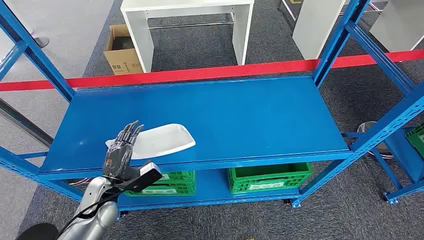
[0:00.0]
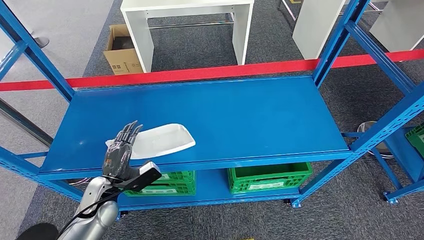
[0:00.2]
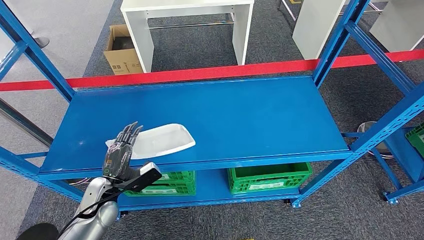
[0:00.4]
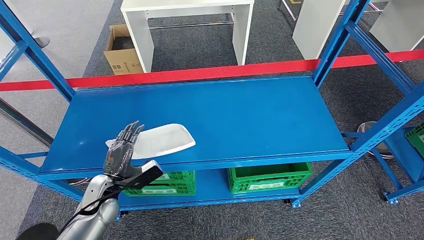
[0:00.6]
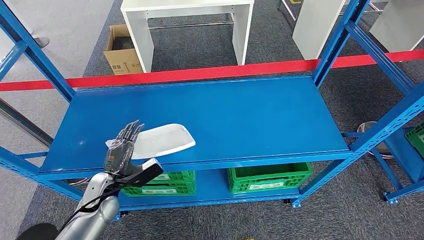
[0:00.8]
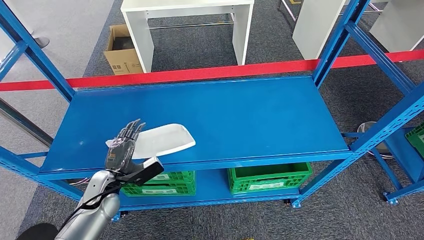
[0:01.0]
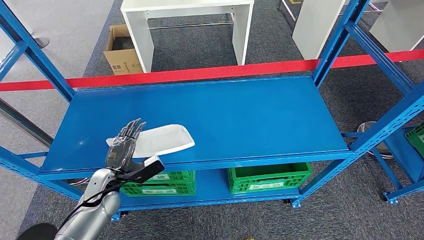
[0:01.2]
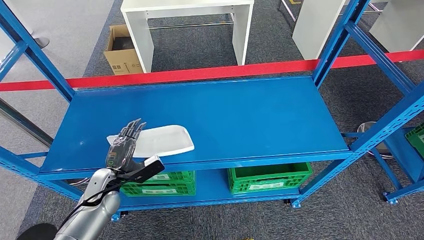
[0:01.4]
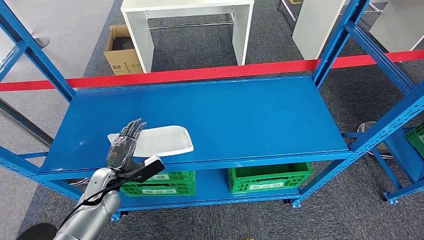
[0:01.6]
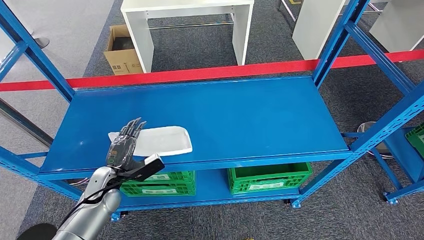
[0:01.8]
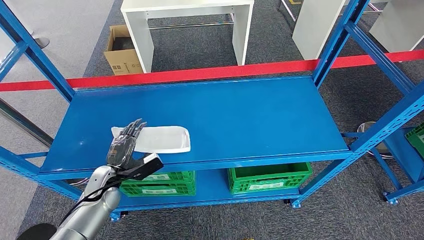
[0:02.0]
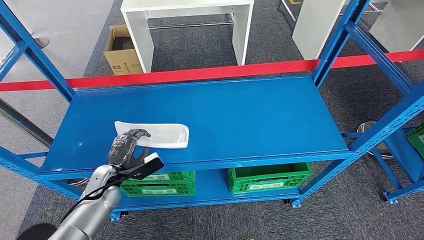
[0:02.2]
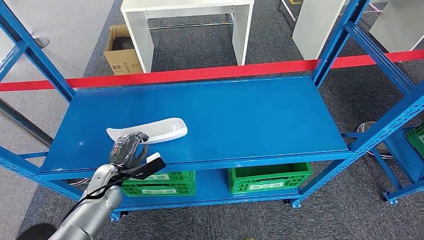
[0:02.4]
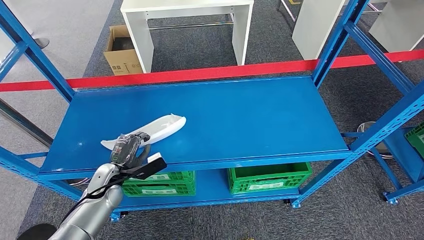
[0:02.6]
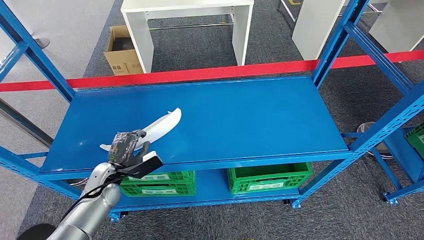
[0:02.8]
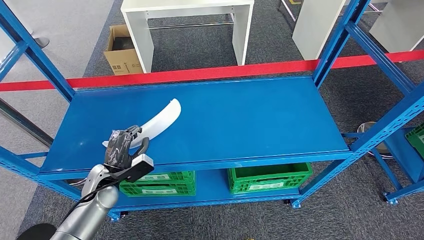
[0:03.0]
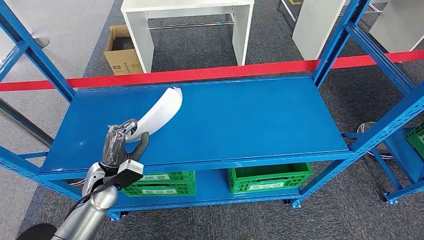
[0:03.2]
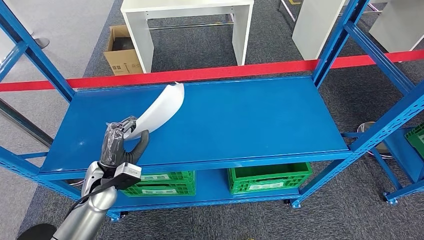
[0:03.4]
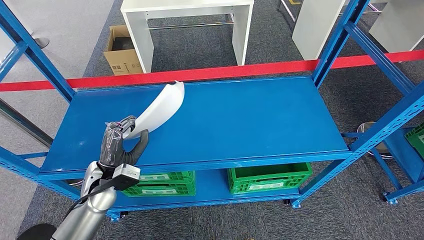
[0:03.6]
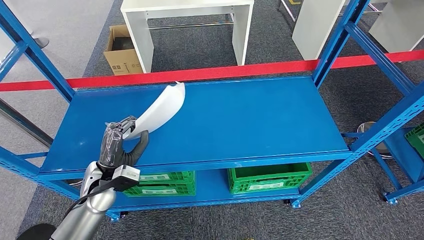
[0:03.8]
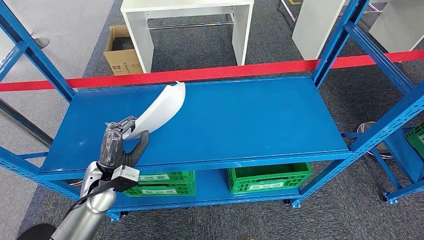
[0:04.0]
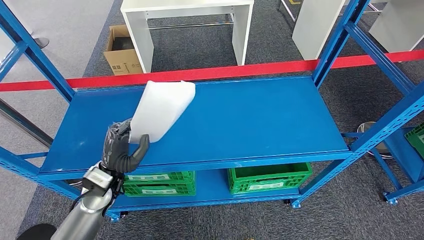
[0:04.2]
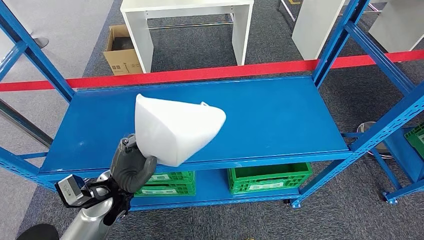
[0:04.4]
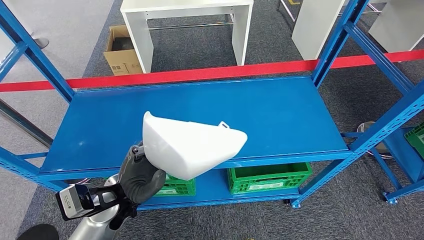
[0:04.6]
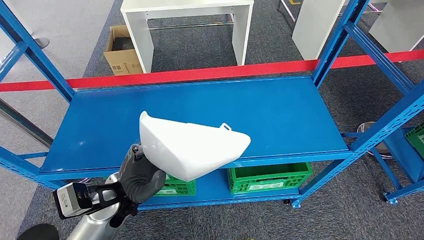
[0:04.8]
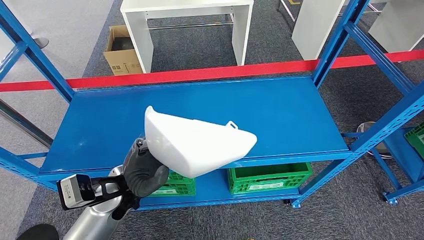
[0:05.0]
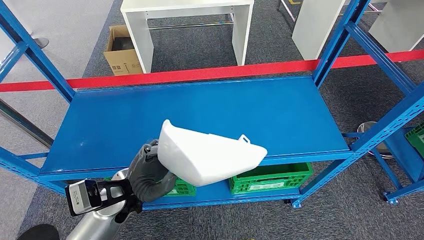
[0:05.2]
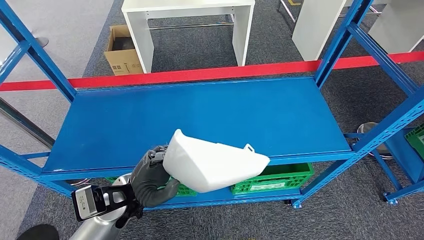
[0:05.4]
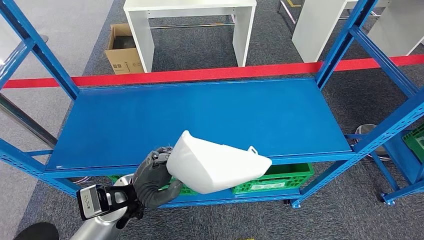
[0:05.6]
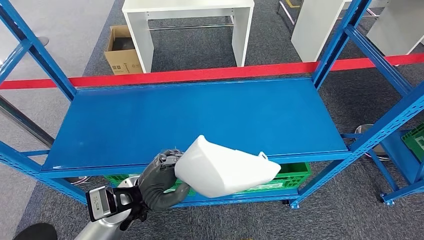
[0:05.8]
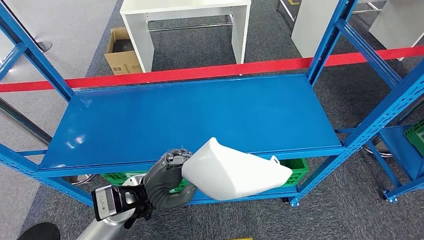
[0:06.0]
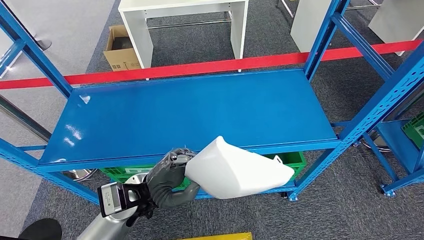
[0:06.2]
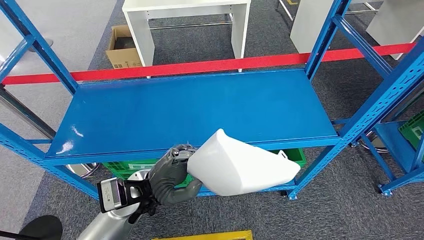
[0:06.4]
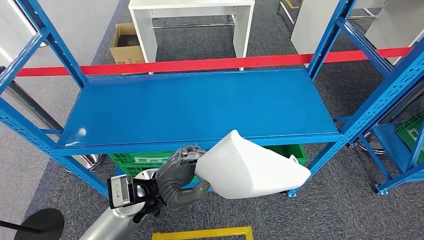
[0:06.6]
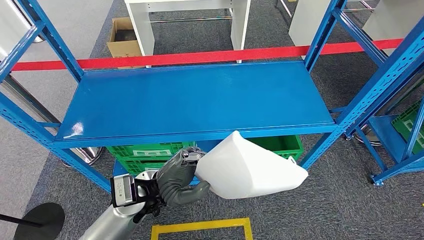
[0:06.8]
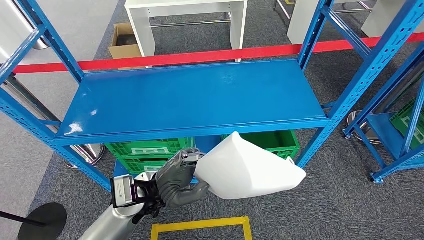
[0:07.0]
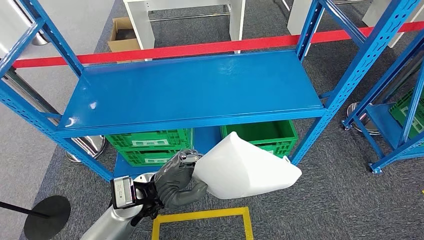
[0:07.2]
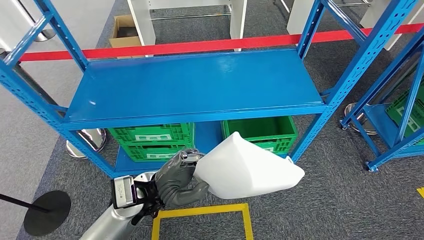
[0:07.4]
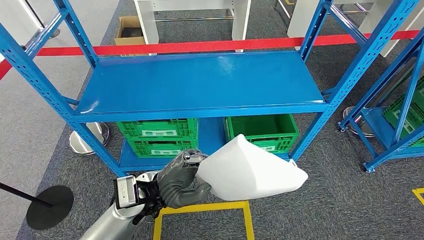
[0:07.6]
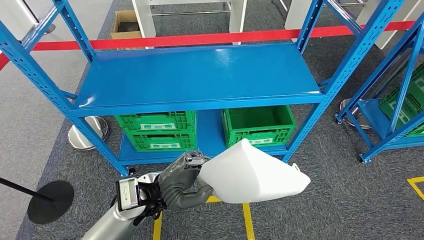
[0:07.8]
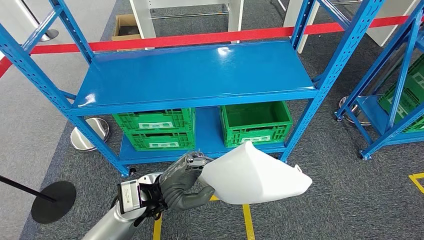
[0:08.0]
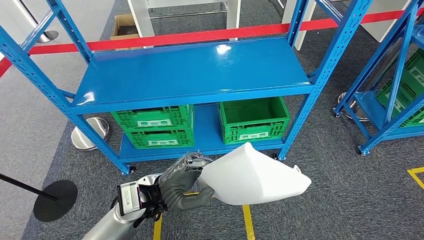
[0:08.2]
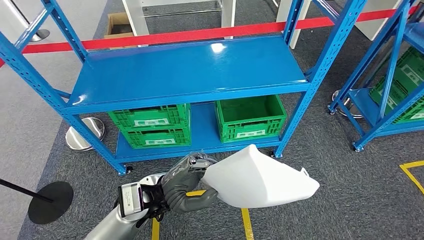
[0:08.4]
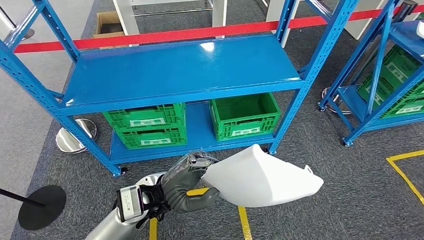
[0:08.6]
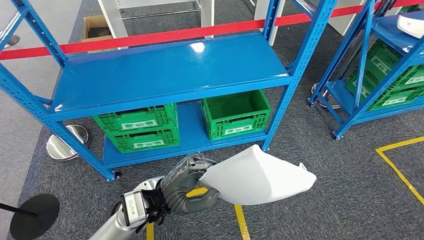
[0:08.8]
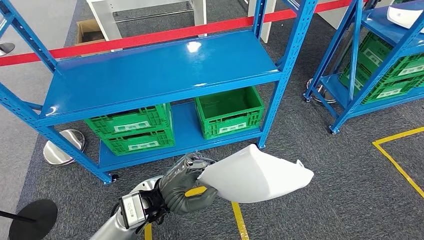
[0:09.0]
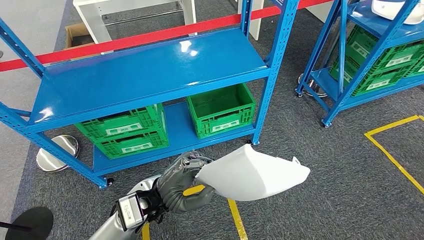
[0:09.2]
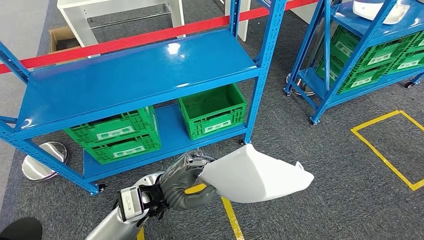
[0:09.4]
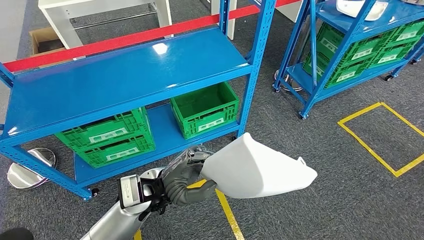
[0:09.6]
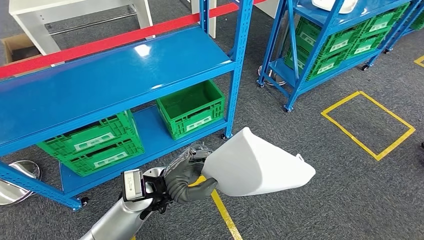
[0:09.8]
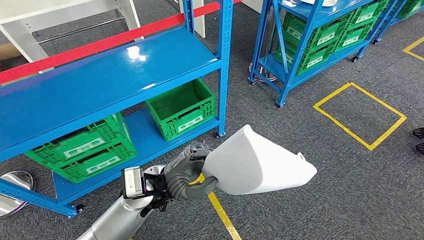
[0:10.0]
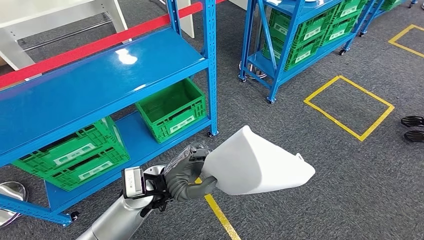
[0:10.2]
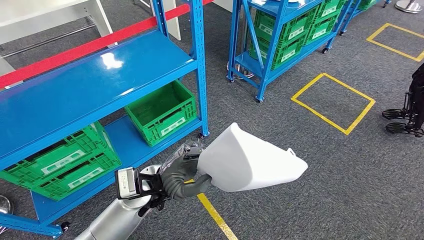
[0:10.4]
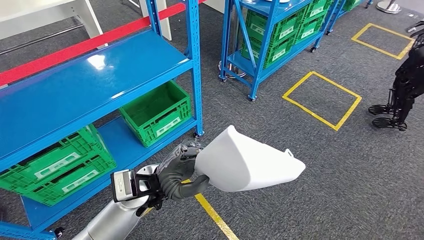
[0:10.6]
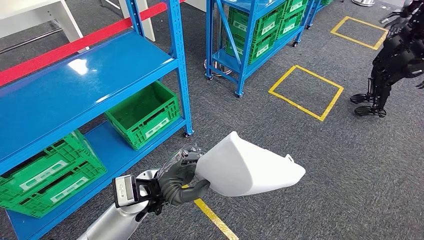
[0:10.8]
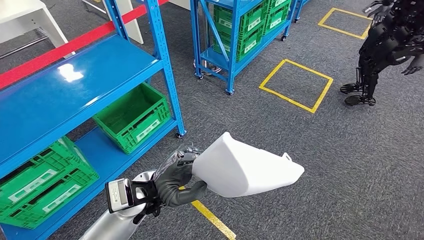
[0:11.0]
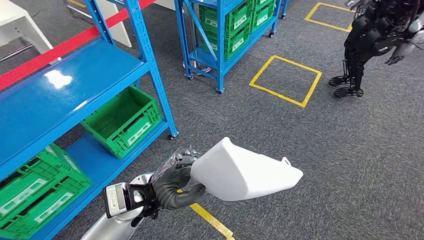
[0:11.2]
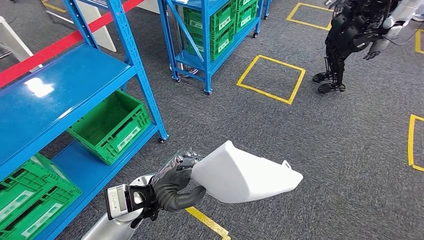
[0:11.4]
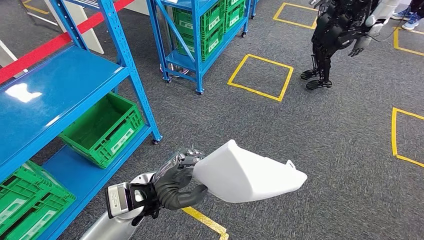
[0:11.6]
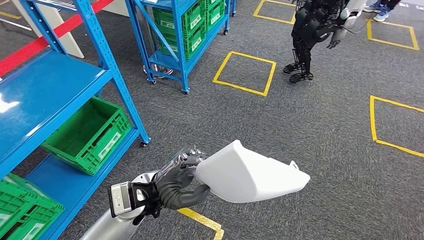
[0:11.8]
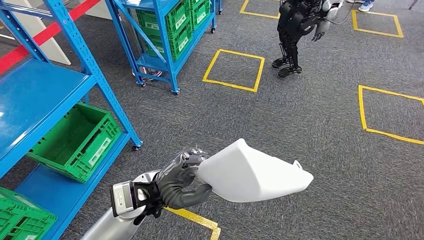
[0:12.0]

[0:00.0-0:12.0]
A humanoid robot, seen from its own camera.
Step, 0:00.0 to 0:06.0: Pick up the small parts from the shelf.
0:01.6 to 0:03.0: The hands make only small movements.
0:03.0 to 0:04.4: The left hand shifts roughly 10 cm upward and to the right.

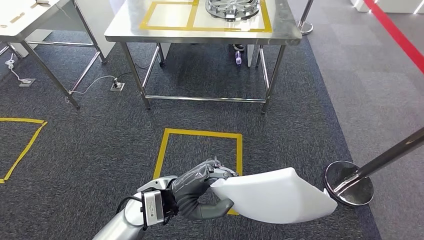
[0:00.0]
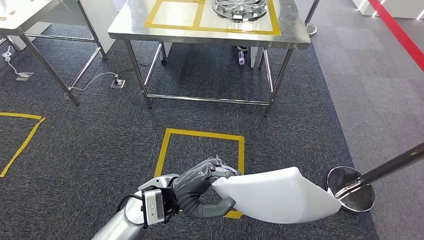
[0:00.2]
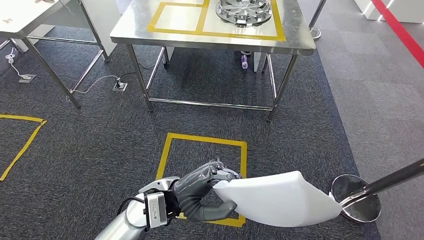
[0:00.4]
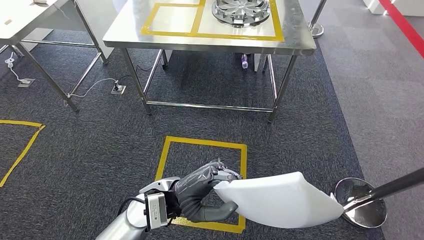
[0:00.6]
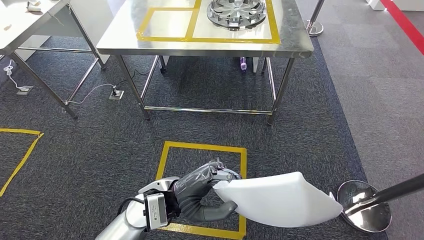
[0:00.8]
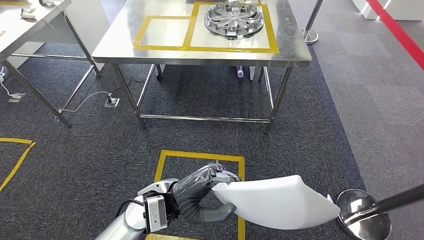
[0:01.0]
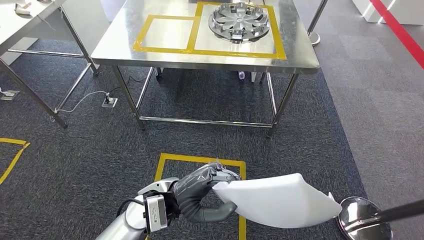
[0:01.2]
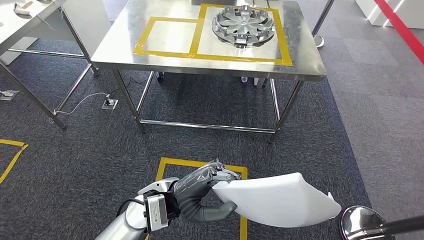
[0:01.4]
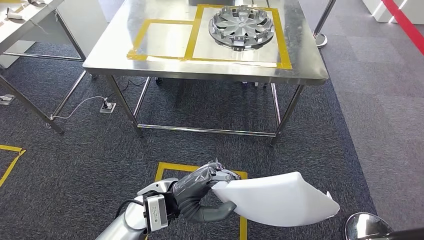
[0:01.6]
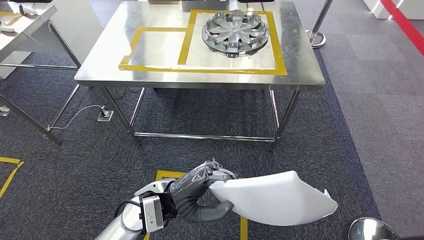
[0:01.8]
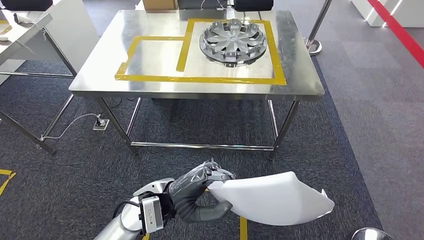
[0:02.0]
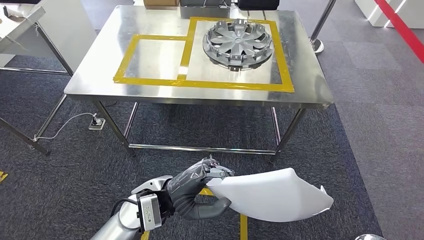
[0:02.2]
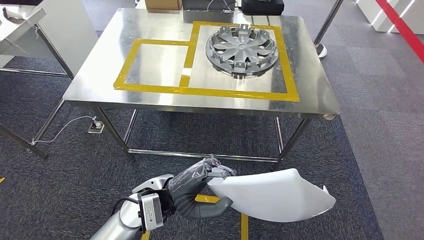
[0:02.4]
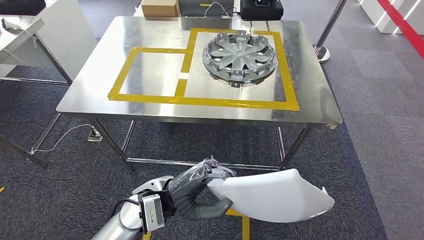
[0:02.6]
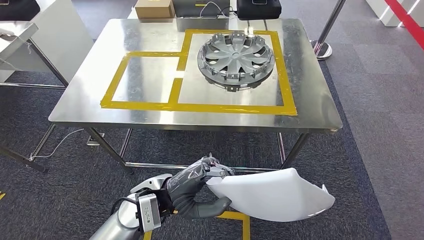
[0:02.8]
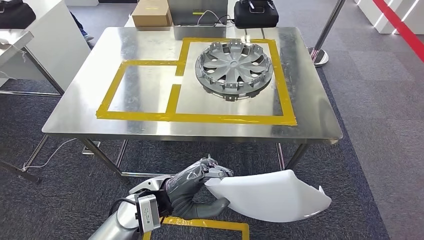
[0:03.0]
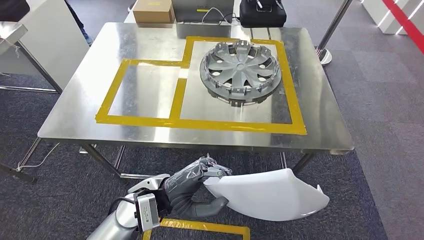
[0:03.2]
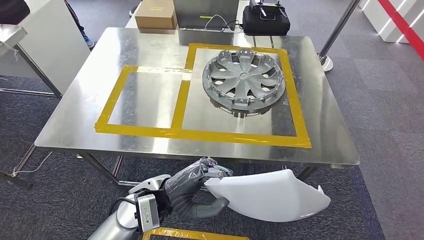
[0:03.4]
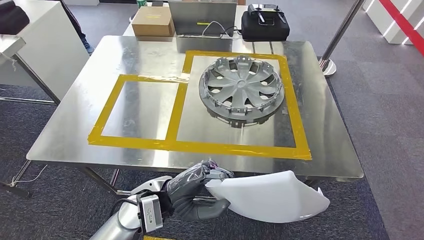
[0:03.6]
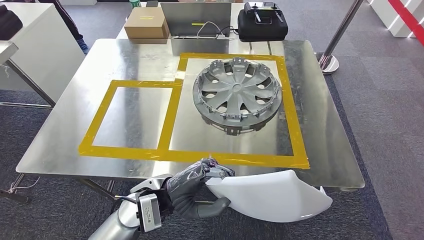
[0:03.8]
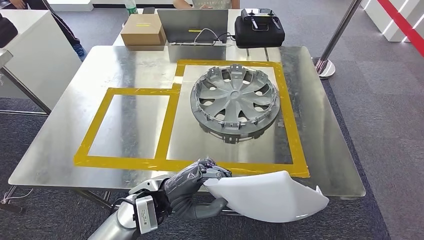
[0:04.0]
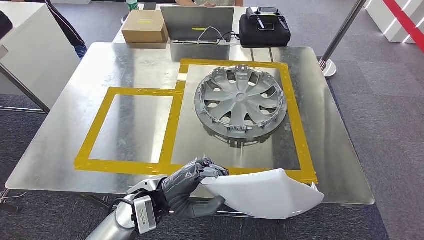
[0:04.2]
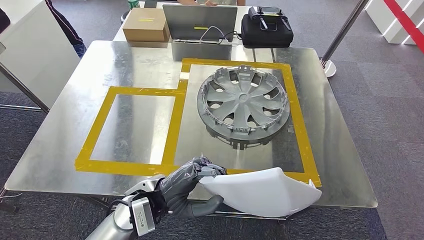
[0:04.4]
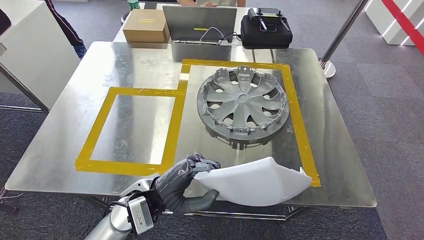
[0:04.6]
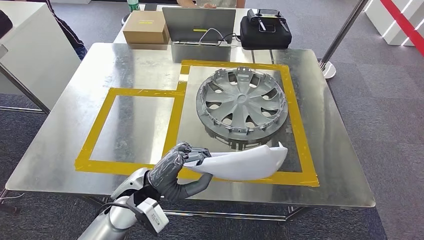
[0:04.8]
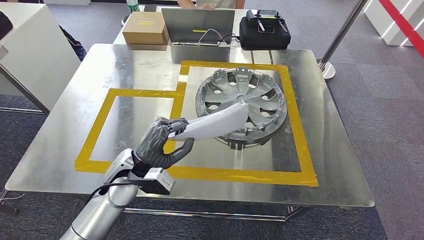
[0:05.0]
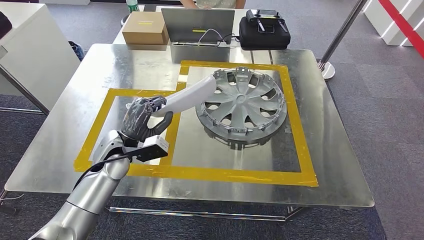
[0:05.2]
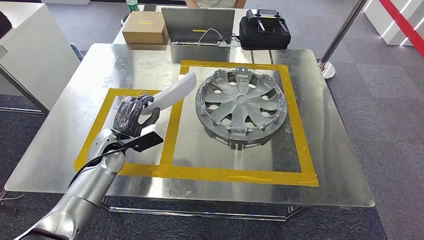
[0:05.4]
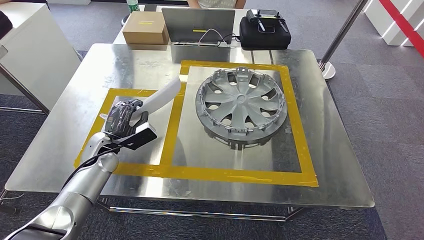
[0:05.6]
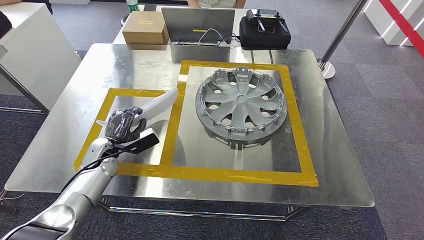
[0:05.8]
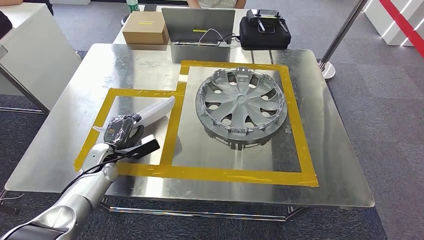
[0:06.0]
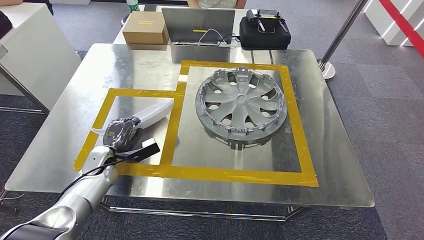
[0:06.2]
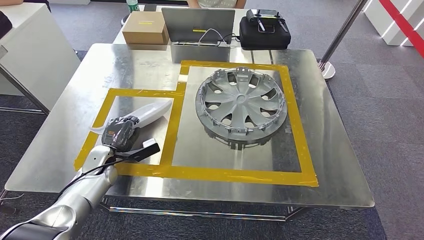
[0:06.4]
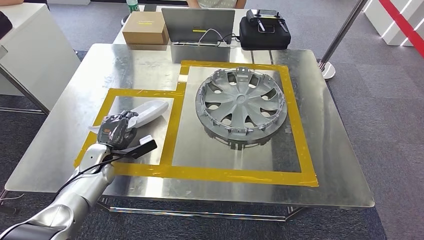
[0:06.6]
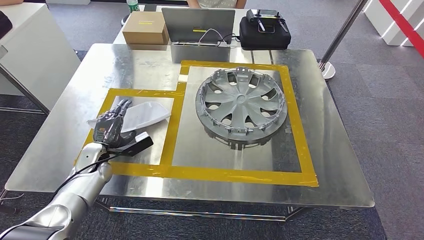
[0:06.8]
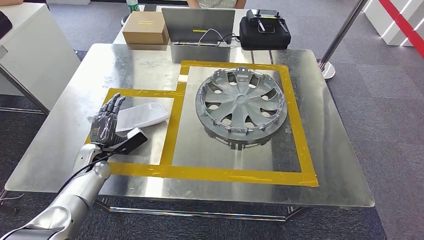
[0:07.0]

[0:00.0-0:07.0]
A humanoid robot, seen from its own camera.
Step, 0:00.0 to 0:04.2: Move the small parts to the workbench.
0:05.6 to 0:07.0: The left hand moves some 5 cm.
